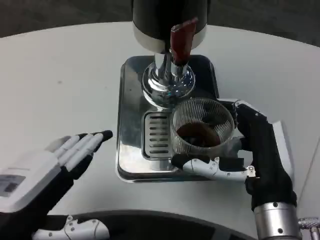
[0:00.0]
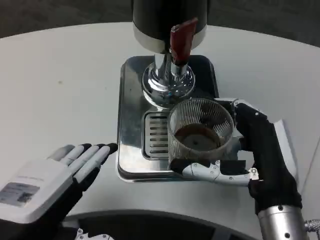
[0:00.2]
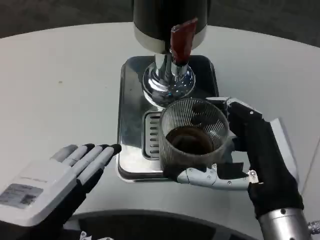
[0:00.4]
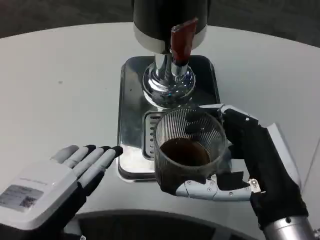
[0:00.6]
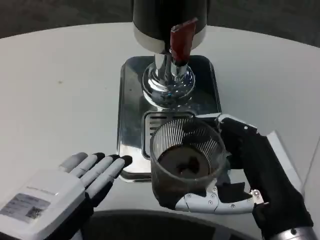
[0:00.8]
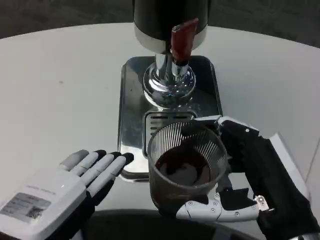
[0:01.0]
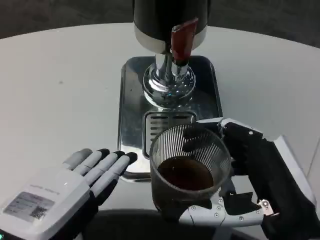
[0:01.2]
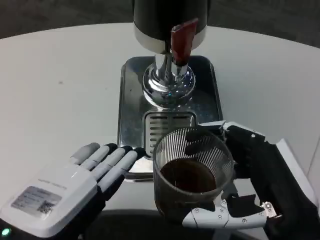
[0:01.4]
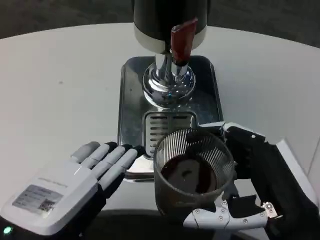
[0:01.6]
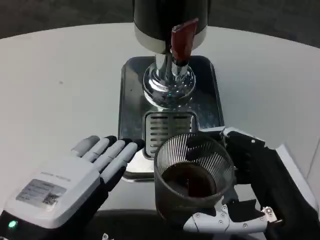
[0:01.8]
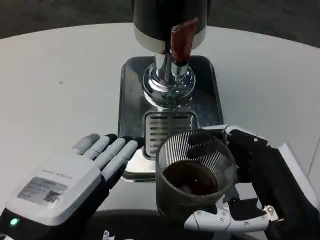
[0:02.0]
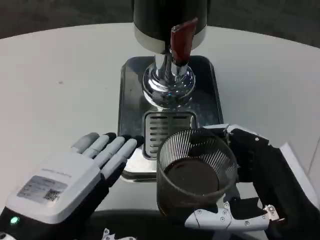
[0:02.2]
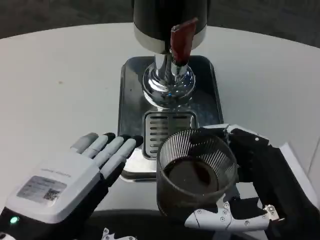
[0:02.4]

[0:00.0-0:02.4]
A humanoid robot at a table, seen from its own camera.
Task of the whole recording: Grasp the cup under the faucet to collect the drink, then remove the cup.
0.0 to 1.2 s: The right hand is displaced backward by about 5 cm.
1.2 to 2.4 s: The hands stay close to where they were, moving slightly.

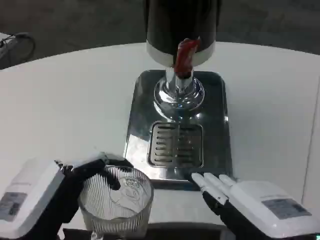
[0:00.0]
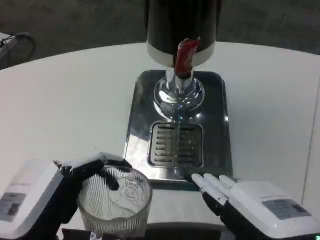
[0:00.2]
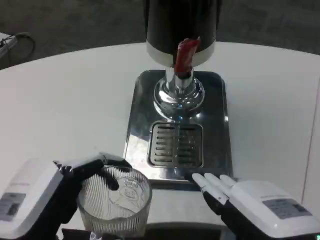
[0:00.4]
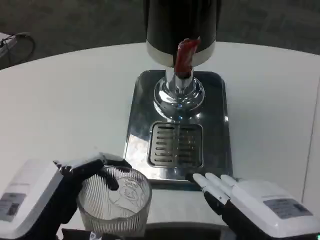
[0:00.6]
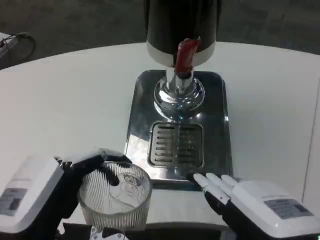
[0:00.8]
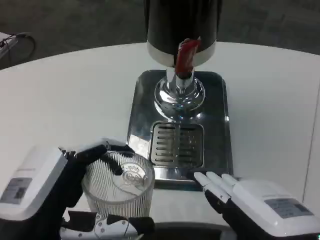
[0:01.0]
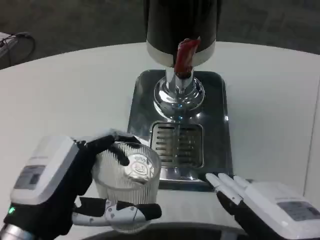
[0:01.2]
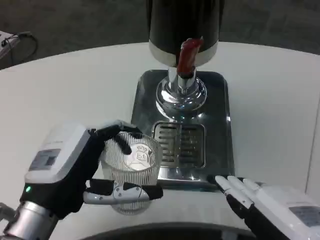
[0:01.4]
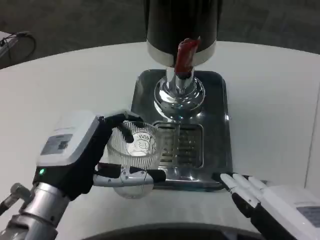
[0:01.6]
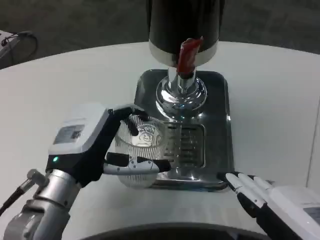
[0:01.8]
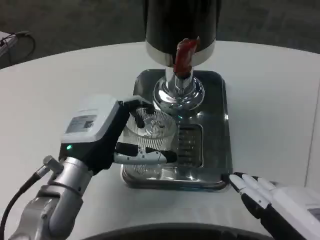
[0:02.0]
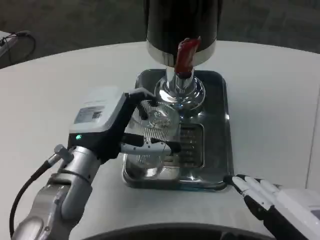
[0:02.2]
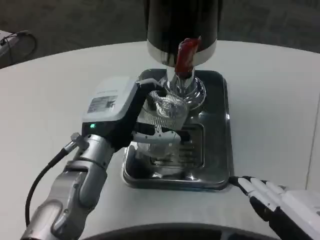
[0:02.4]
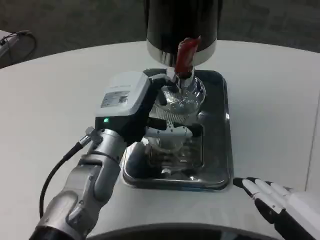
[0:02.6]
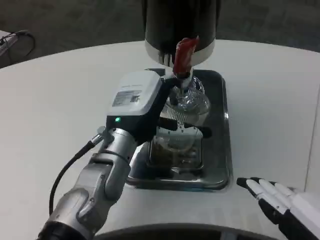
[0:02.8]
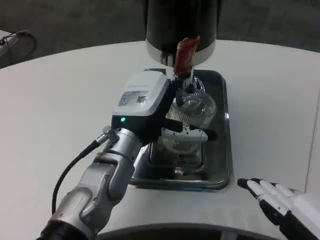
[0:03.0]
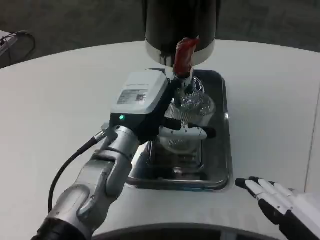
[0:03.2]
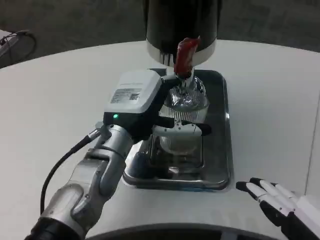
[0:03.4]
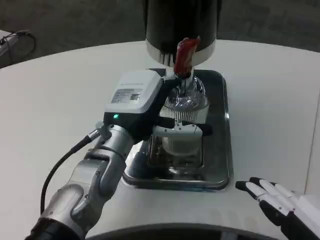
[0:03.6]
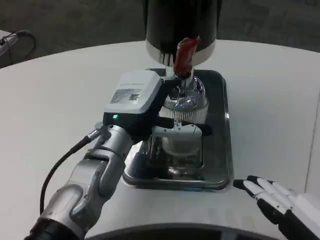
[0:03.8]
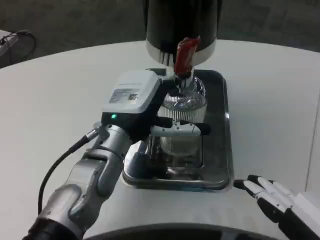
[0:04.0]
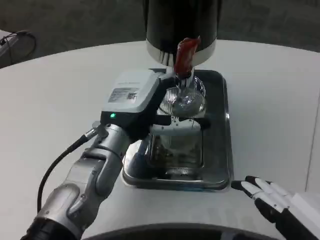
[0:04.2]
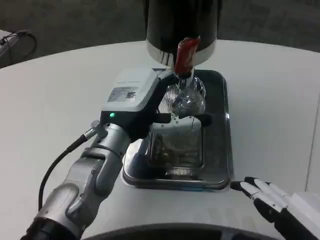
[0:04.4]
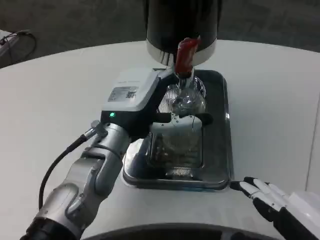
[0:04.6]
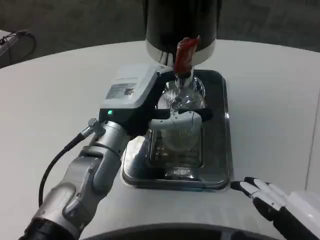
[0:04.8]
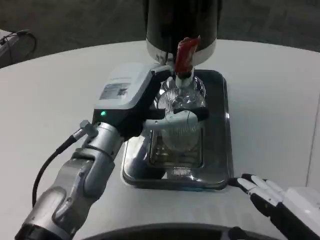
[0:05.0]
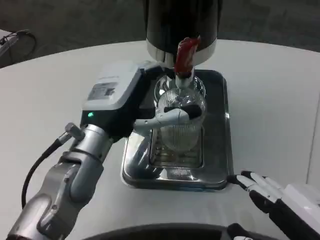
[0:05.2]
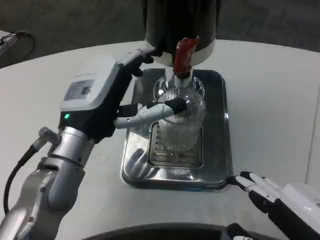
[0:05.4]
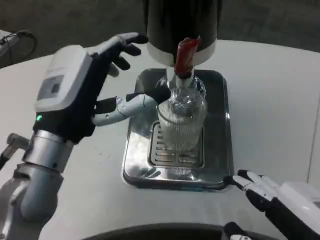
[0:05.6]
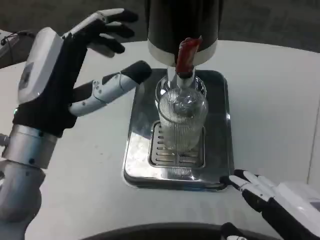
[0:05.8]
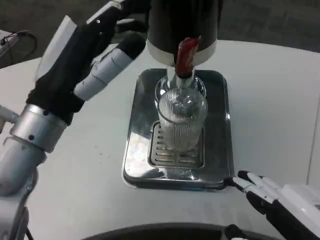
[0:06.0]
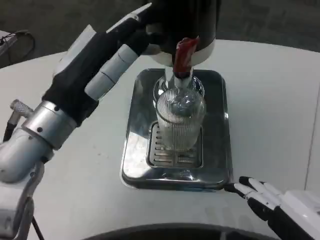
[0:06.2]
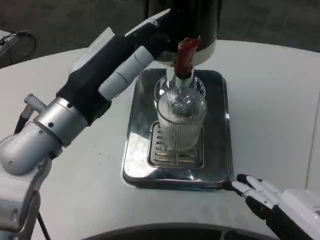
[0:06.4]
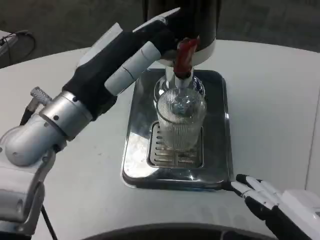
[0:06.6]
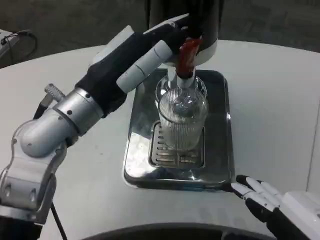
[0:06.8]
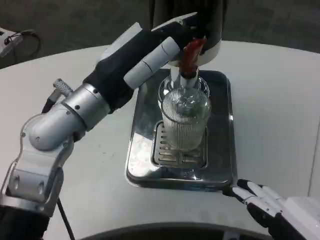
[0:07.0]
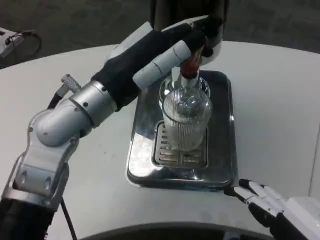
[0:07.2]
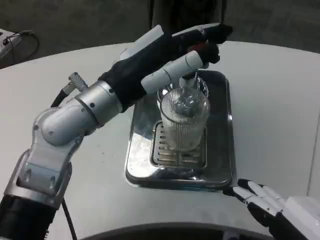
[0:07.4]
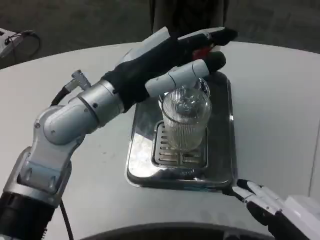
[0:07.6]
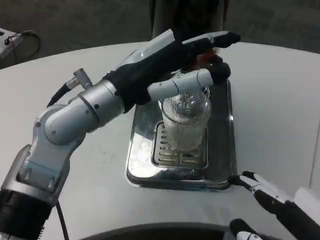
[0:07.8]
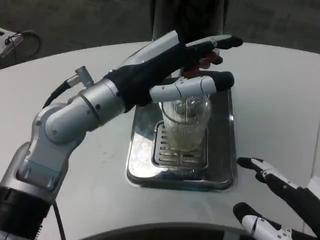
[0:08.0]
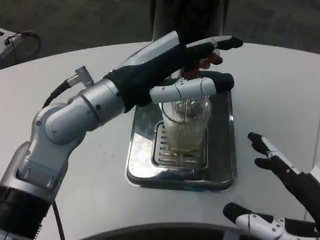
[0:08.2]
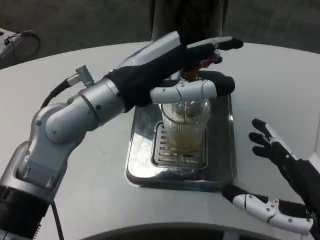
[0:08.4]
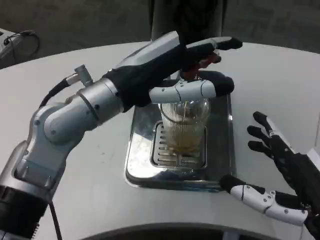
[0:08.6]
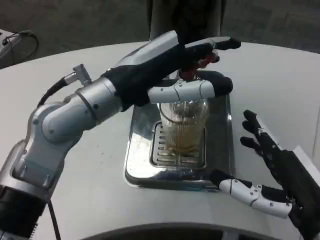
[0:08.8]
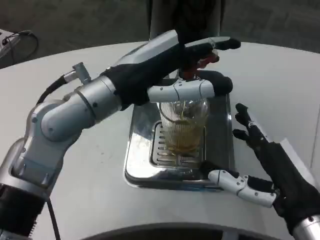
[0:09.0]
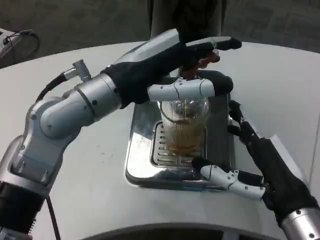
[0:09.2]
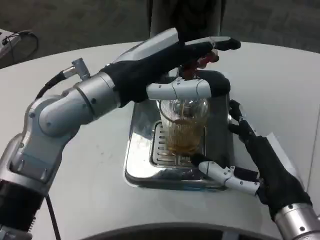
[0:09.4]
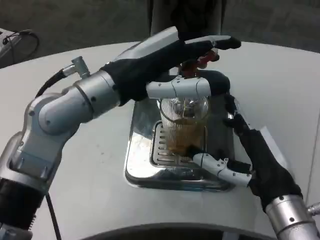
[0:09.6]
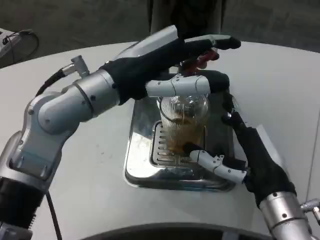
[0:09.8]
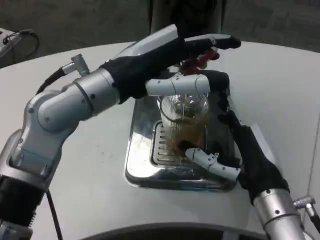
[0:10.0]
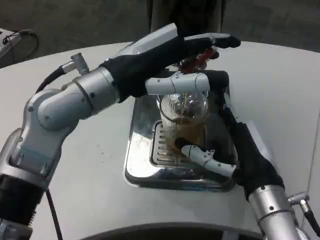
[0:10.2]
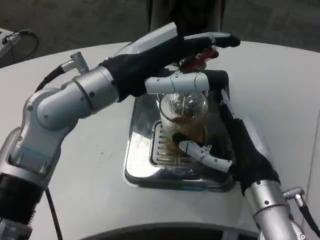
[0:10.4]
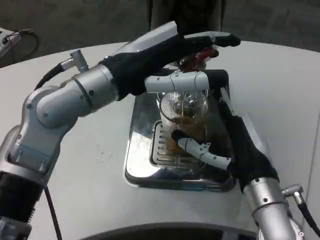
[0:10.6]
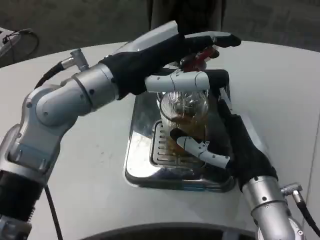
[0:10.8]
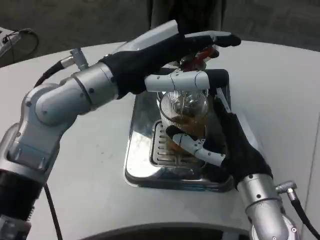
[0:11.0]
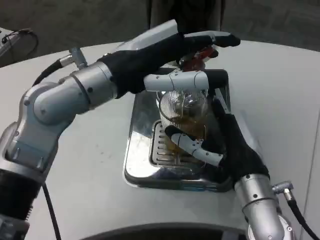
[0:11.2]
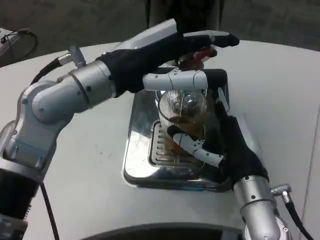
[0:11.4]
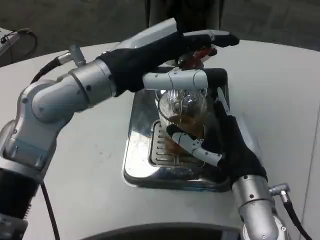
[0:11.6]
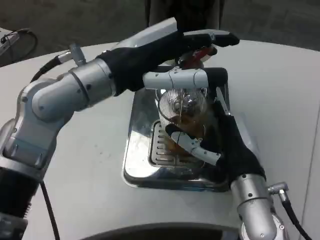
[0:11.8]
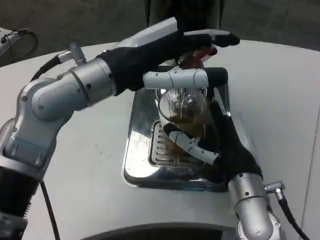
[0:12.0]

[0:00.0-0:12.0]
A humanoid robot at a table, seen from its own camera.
Task of the whole recording: Grasp the cup under the faucet to collect the drink, then remove the cup.
0.0 to 1.6 s: The left hand is displaced forward by approximately 10 cm.
1.6 to 3.0 s: The left hand moves forward and to the right, approximately 15 cm.
3.0 to 4.4 s: The hands make only small movements.
4.4 to 6.0 s: The left hand moves to the left, upward and backward, approximately 10 cm.
6.0 to 7.6 s: The left hand shifts by some 5 cm.
7.6 to 9.0 s: The right hand moves forward, roughly 10 cm.
9.0 to 10.4 s: The right hand shifts approximately 5 cm forward.

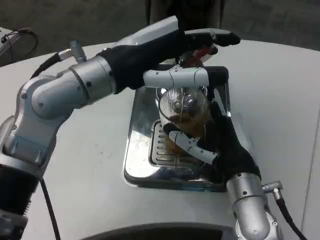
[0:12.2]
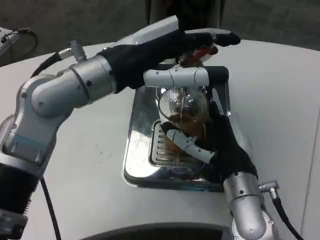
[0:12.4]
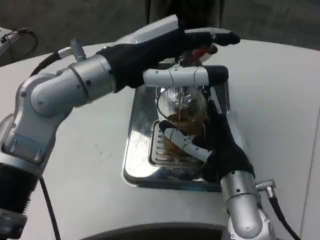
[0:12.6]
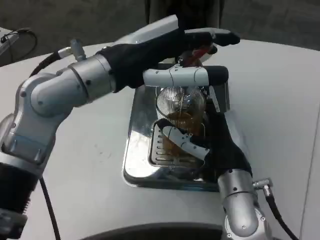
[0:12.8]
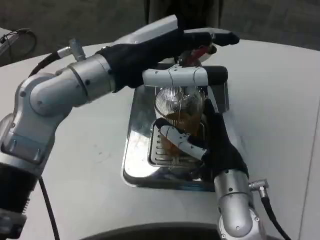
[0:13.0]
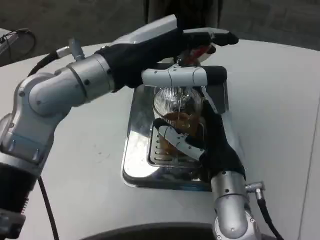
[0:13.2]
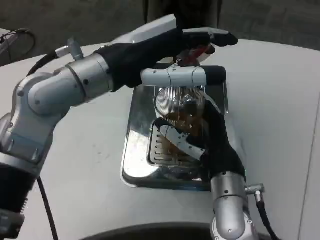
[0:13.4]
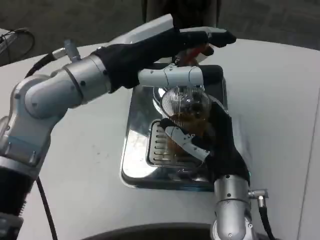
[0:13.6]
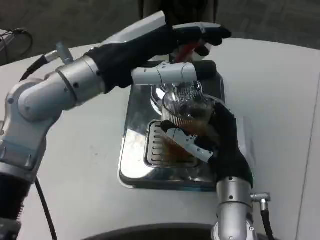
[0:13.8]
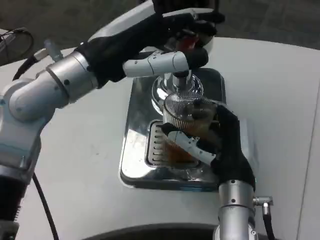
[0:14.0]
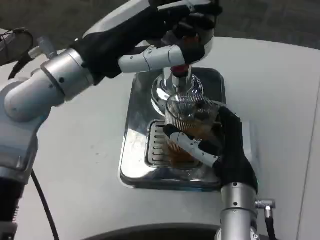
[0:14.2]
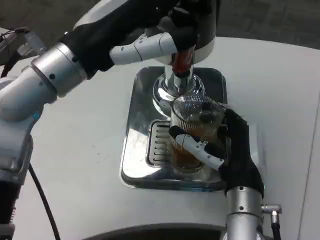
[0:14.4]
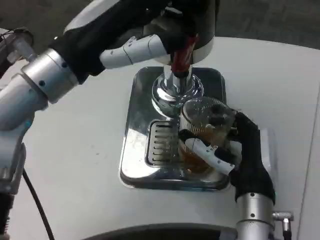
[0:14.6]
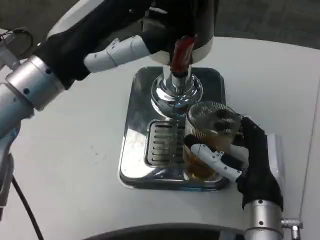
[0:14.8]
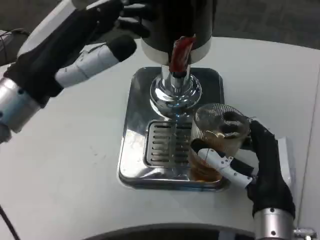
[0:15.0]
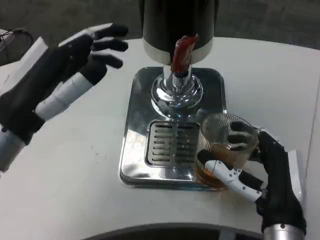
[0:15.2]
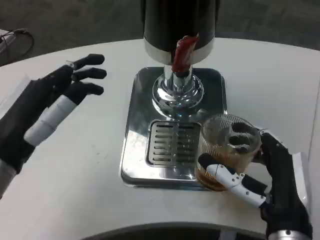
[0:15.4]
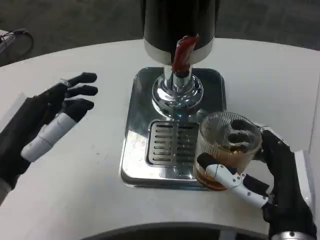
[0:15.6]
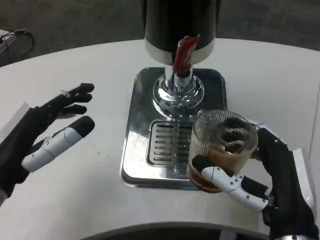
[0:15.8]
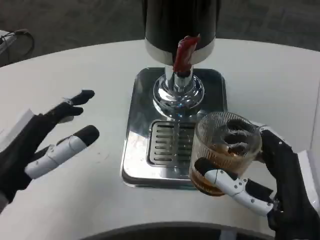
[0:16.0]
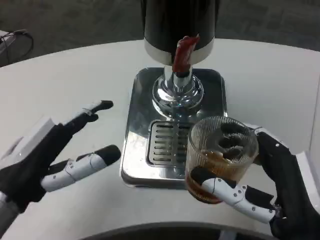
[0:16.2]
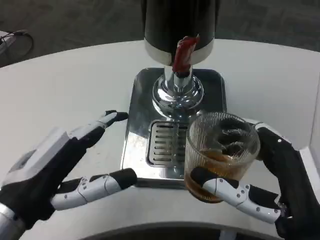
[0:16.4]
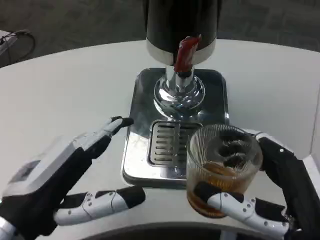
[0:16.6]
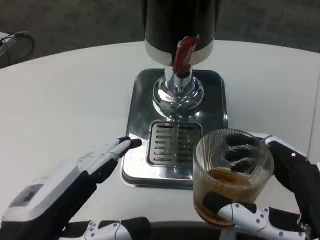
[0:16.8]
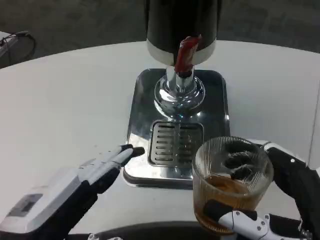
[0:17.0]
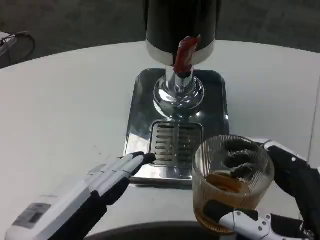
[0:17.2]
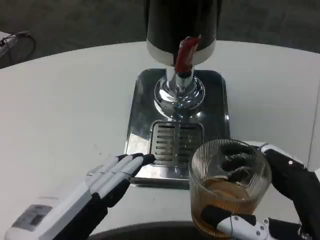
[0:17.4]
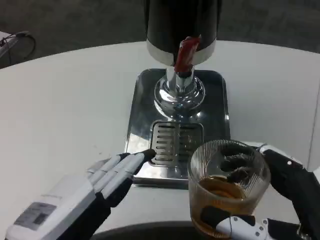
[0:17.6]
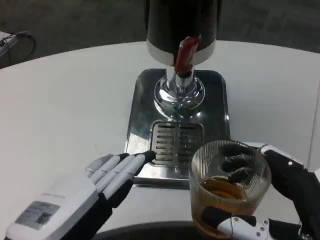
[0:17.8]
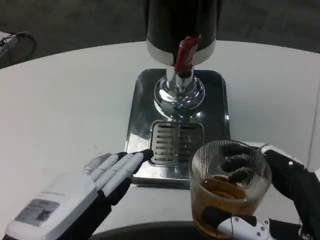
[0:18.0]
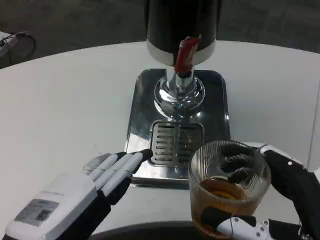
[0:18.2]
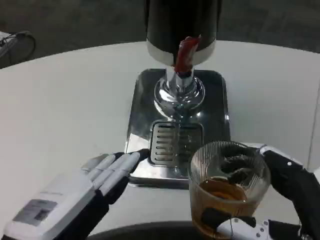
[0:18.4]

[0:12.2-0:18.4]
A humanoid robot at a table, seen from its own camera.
Task of the whole recording: Grasp the cup under the faucet to collect the drink, then remove the cup.
13.8 to 15.4 s: The right hand is displaced backward by roughly 10 cm. The left hand is displaced downward, backward and to the left by approximately 15 cm.
15.4 to 16.8 s: The hands both shift backward by approximately 10 cm.

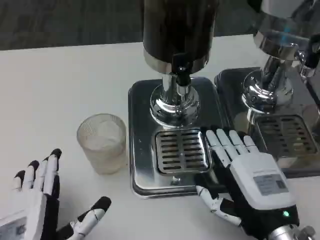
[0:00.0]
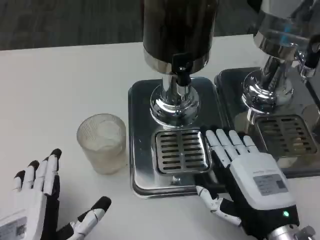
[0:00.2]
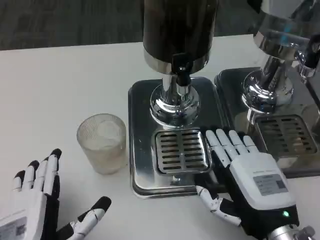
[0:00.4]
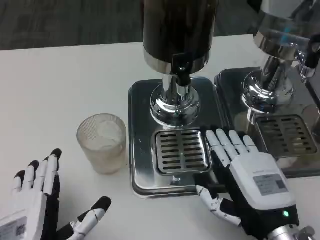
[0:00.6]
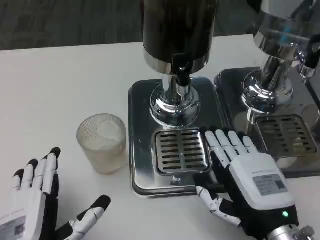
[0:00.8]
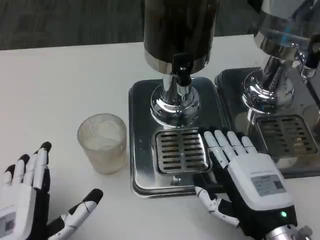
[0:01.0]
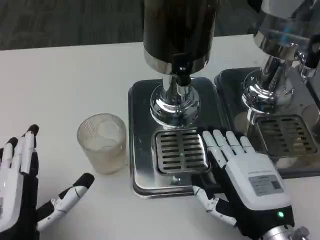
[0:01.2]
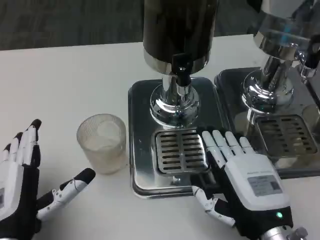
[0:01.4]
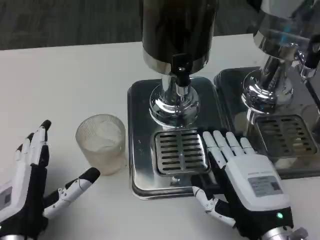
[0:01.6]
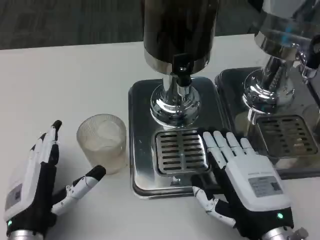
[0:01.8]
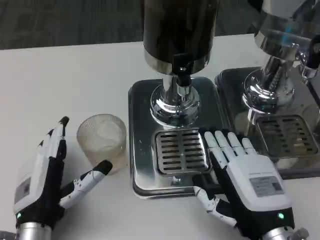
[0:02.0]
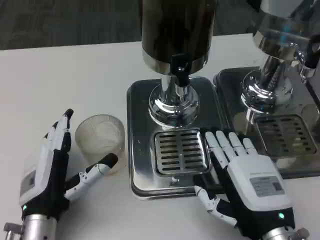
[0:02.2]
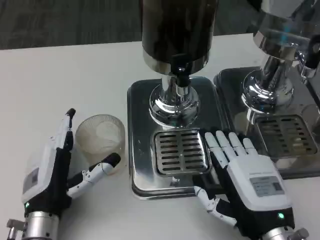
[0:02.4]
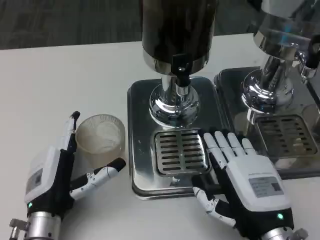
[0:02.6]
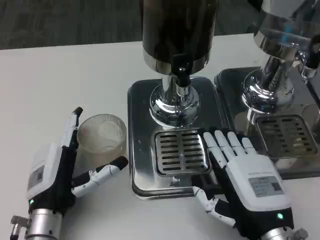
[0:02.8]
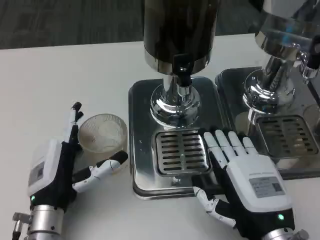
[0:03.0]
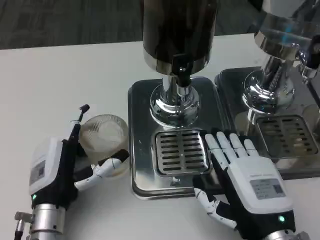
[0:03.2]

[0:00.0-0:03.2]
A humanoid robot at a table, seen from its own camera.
Task of the whole recording: Grasp the cup under the faucet to collect the drink, then remove the cup.
0.0 to 1.6 s: The left hand is displaced forward by about 5 cm.
1.6 to 3.2 s: The left hand heads forward, covering roughly 5 cm.
